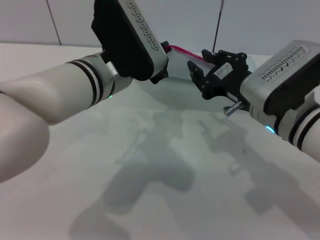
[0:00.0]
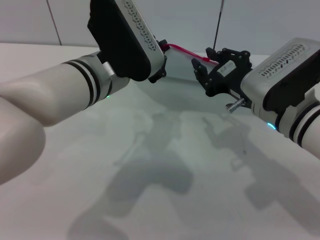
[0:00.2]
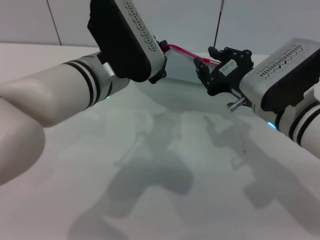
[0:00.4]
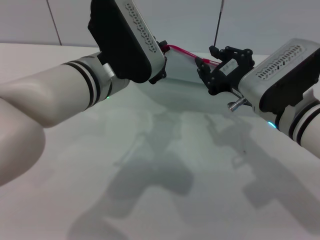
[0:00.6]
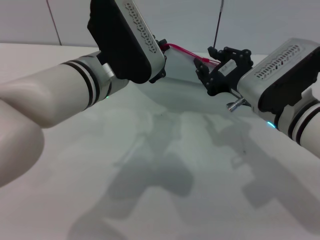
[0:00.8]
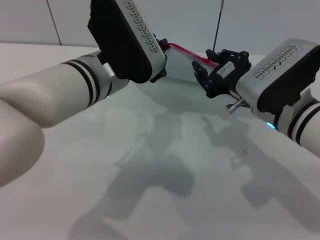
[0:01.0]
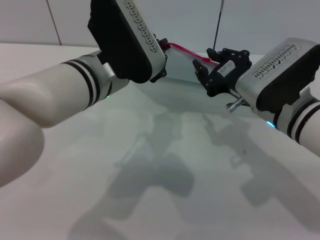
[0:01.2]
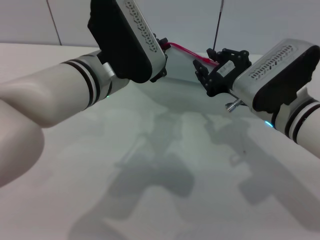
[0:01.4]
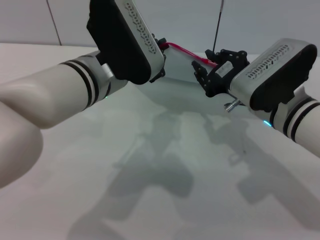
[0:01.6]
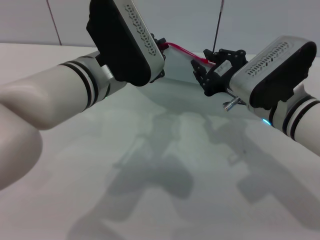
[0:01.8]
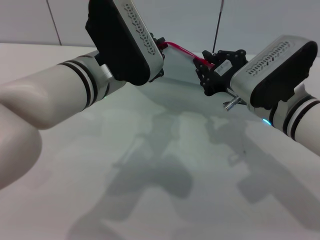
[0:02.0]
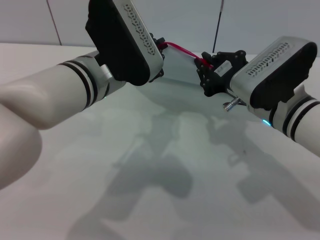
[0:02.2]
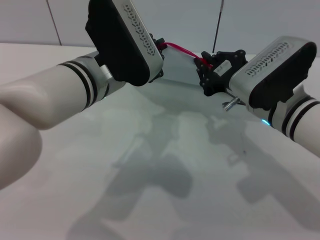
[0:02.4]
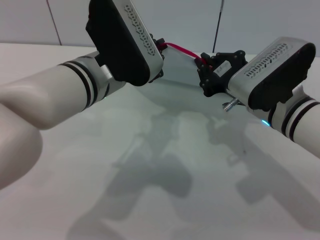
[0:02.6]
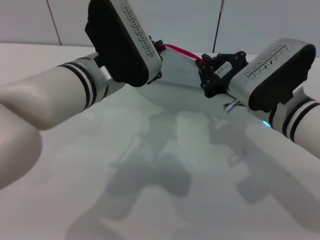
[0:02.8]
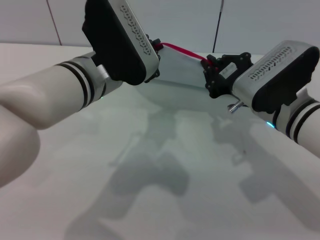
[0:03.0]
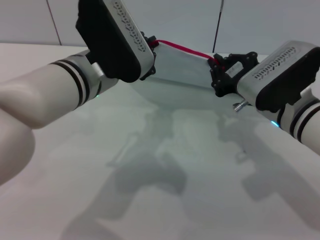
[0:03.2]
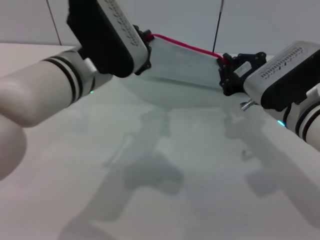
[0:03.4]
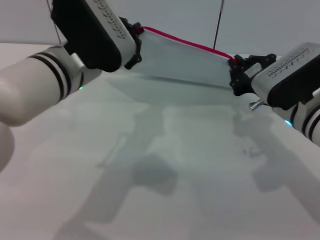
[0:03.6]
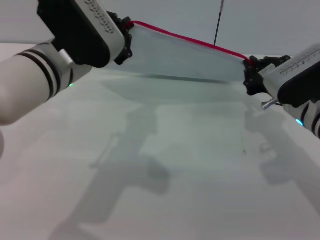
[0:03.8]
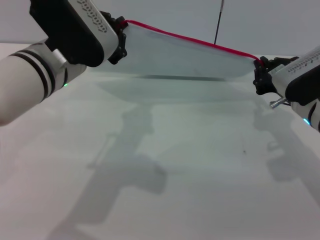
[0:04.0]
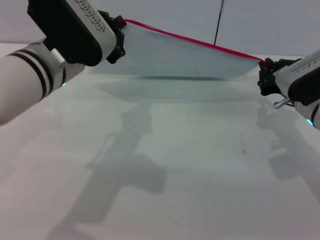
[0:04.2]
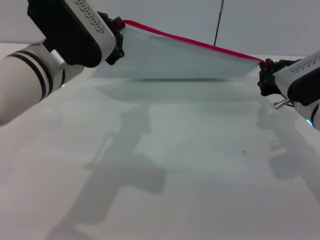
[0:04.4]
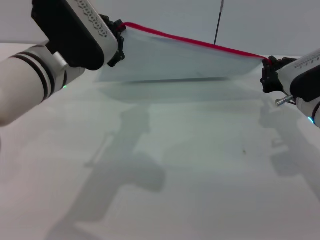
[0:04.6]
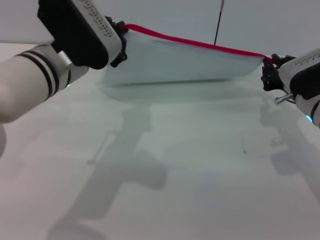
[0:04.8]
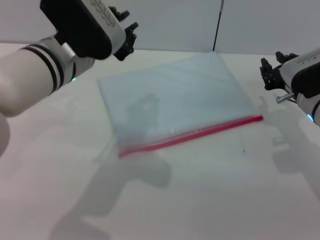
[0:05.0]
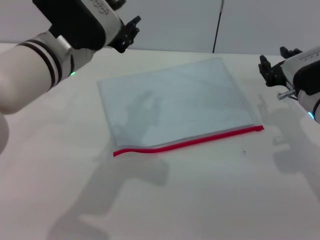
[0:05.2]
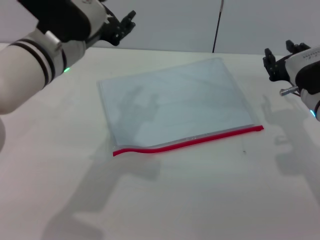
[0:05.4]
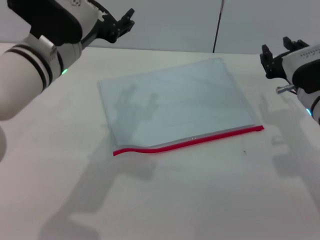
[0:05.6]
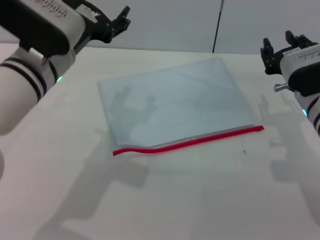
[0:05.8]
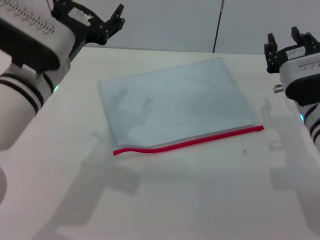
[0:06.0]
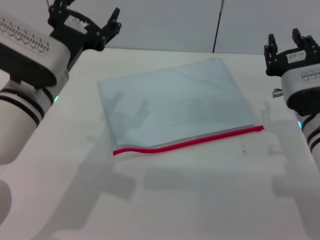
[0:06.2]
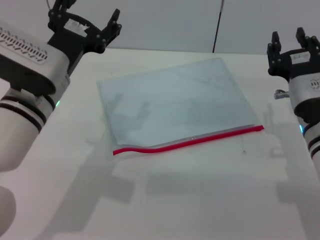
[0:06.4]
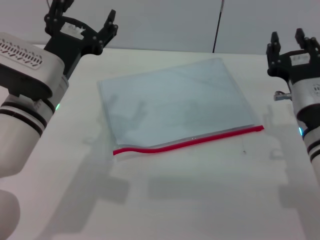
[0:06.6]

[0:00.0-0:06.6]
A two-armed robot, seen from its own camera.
Step, 0:00.0 to 0:04.2: Pulling up the zipper on the transparent plastic bag with the right gripper to close it.
Step, 0:04.4 to 0:05.2: Place the transparent plastic bag.
0:00.0 to 0:01.6: The grippers move only a little.
0:01.6 to 0:03.2: The right gripper closes up.
0:03.2 to 0:05.0: The right gripper heads to the right, covering approximately 5 cm, and opens its fingers.
0:05.0 to 0:06.6: The left gripper travels downward by about 5 cm, and opens its fingers. The right gripper goes some 5 cm backward, and opens.

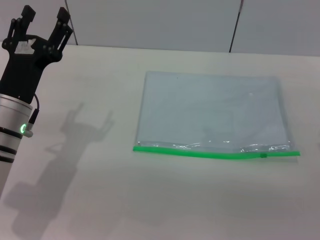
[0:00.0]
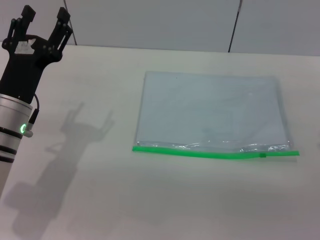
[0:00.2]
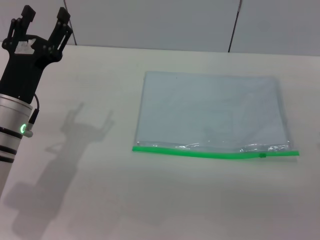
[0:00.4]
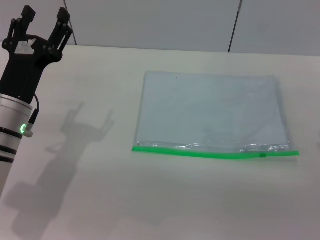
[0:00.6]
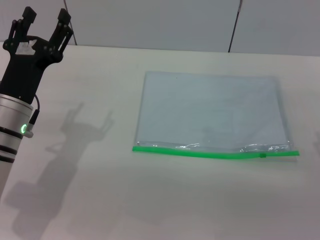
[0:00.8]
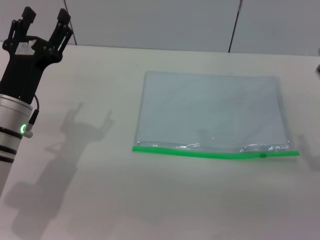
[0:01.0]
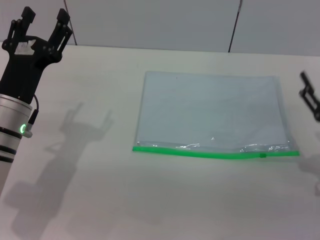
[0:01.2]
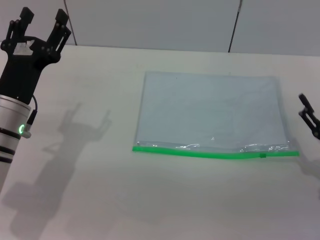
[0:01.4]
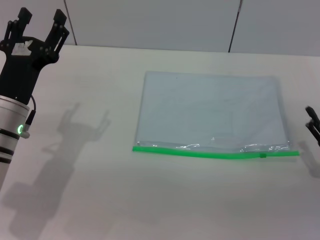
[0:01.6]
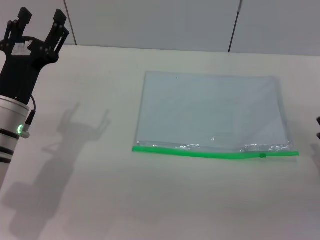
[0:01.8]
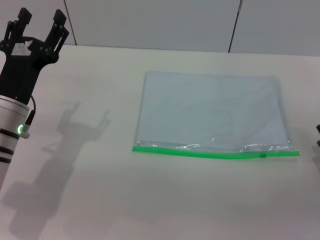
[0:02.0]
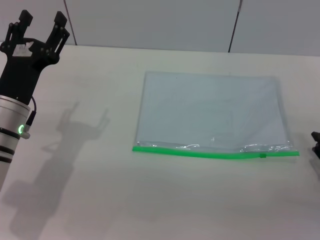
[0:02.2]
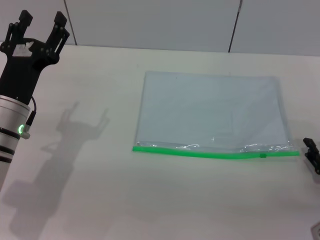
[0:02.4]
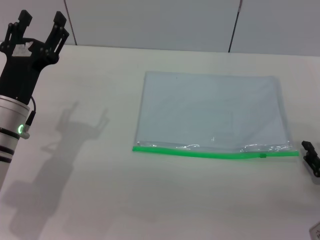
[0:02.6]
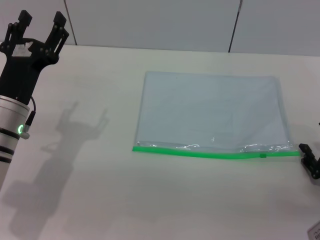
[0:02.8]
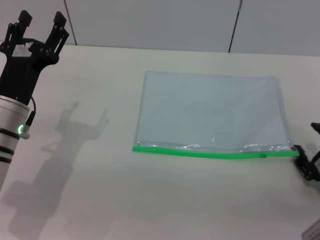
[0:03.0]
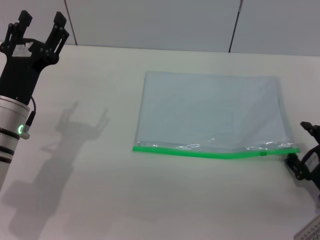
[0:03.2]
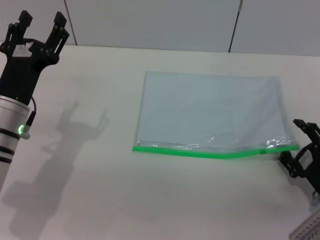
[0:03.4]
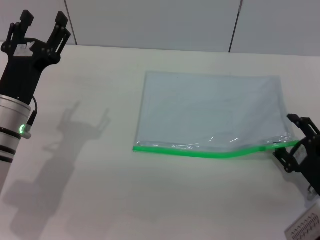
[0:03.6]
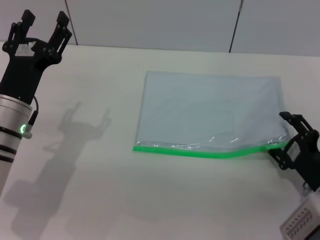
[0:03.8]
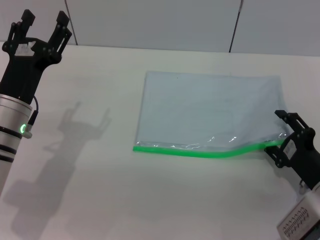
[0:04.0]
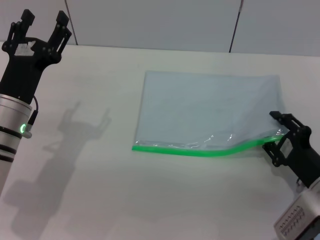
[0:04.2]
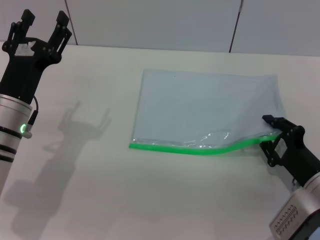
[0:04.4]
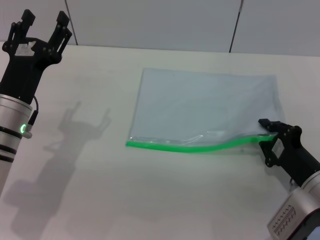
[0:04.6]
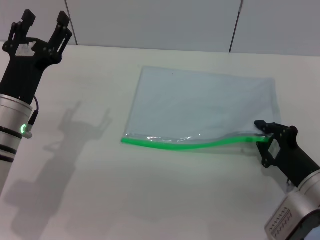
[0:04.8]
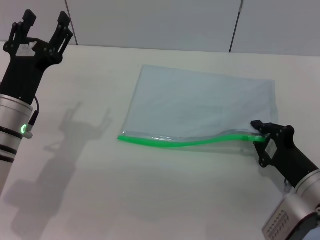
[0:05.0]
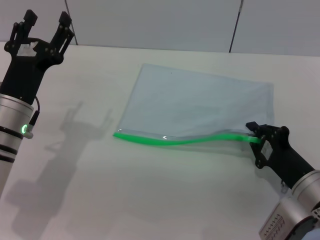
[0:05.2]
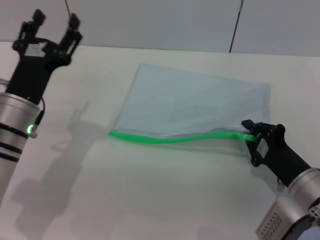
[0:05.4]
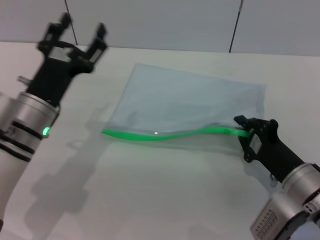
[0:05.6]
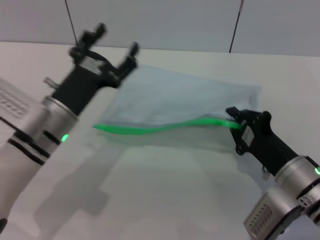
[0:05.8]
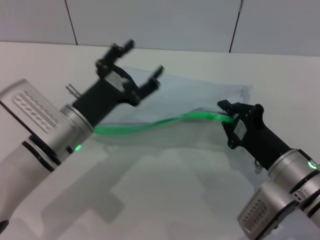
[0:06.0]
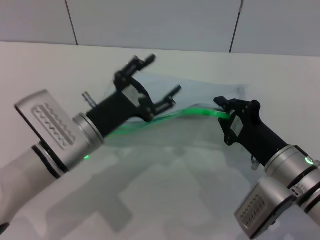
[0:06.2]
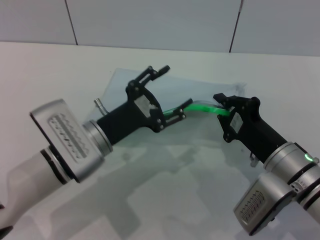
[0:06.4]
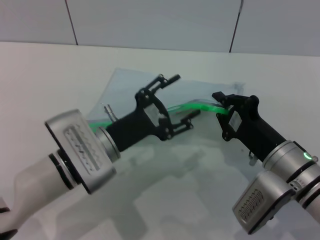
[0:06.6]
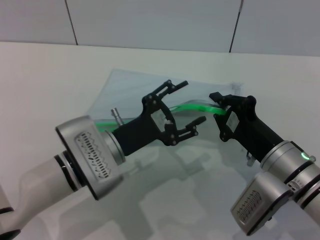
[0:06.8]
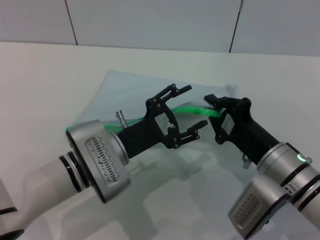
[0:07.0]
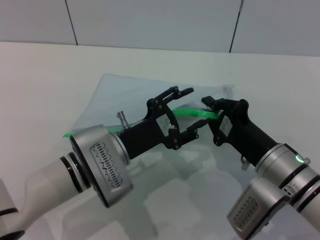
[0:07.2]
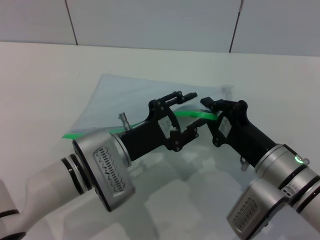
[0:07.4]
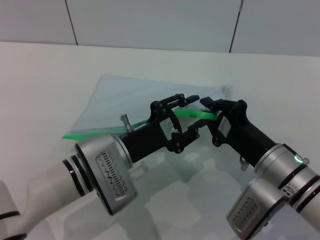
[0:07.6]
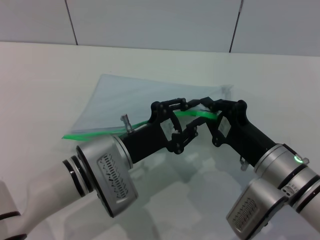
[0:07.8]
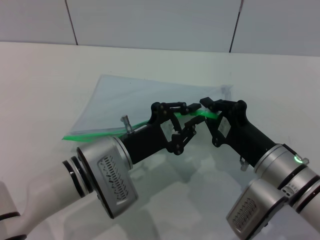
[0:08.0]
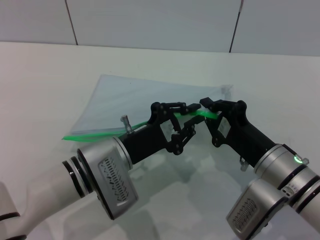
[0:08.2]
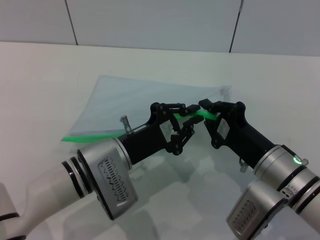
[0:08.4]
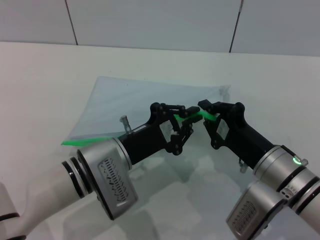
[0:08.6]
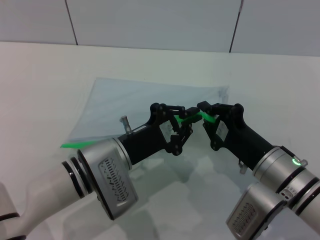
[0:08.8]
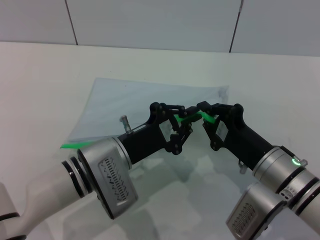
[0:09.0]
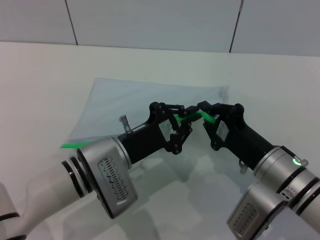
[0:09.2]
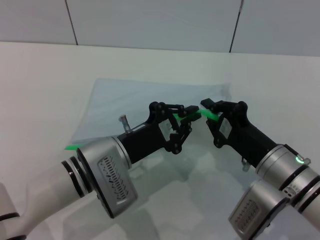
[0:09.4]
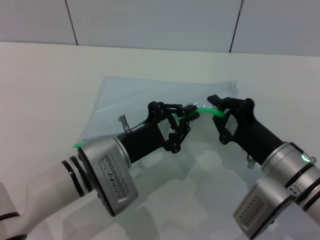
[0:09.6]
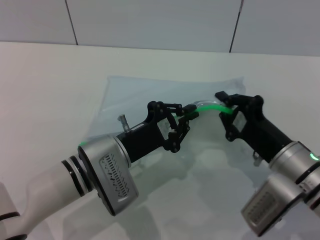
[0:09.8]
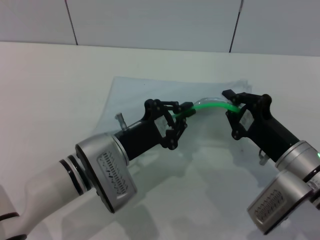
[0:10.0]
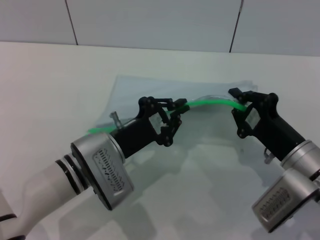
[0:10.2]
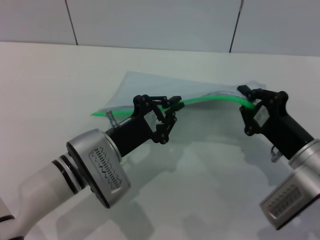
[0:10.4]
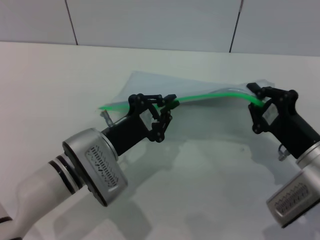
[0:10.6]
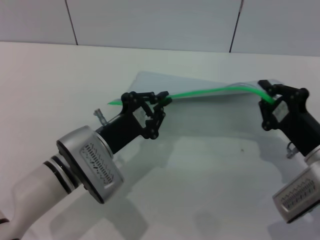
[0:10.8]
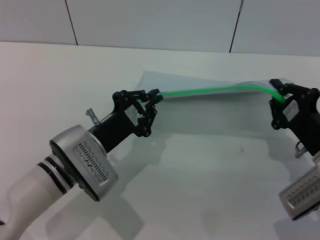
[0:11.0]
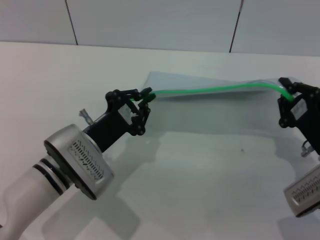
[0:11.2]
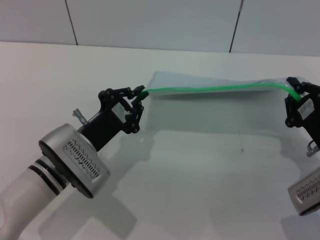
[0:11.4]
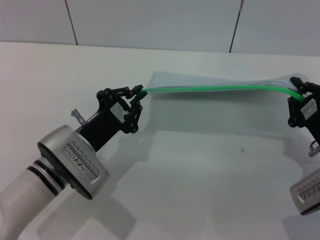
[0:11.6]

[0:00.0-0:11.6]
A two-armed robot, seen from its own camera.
Step, 0:00.0 to 0:05.8: Pick up the transparent plastic bag with the right gripper.
0:00.0 to 0:01.4: The right gripper shifts about 5 cm downward.
0:01.4 to 0:02.8: The right gripper ends up roughly 5 cm from where it was.
0:02.8 to 0:04.4: The right gripper shifts some 5 cm to the left.
0:04.4 to 0:05.8: The right gripper shifts by about 5 cm, and closes up.
0:05.8 to 0:07.2: The left gripper heads to the right, covering some 5 cm.
0:07.2 to 0:08.8: The left gripper closes its fingers.
0:10.2 to 0:11.6: The right gripper goes some 5 cm to the right.

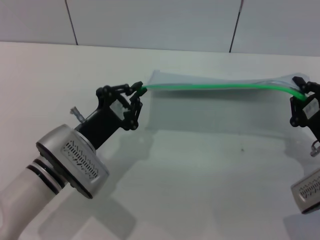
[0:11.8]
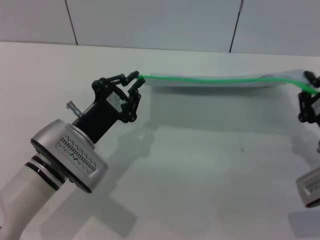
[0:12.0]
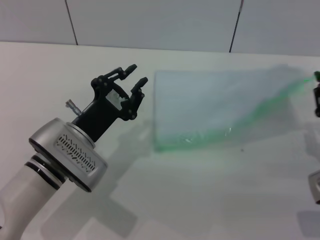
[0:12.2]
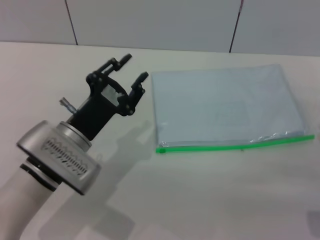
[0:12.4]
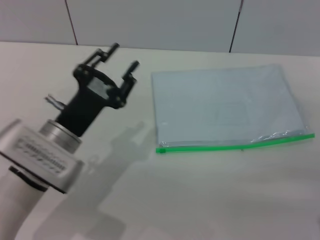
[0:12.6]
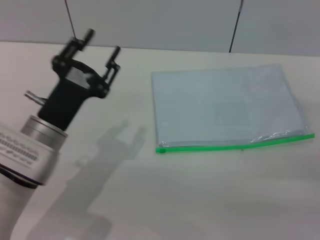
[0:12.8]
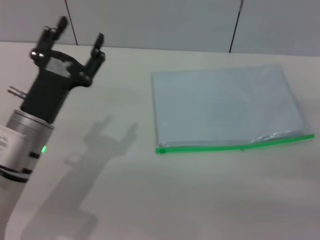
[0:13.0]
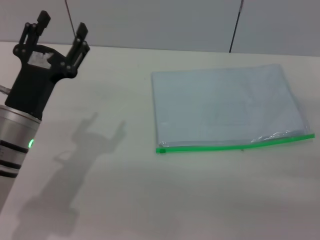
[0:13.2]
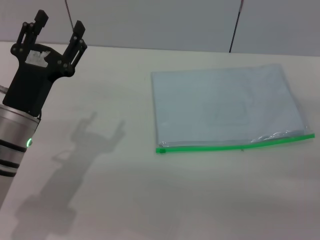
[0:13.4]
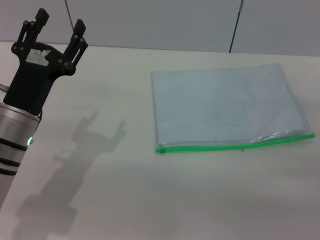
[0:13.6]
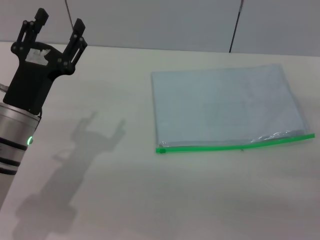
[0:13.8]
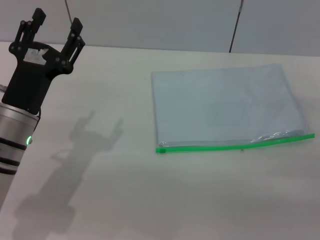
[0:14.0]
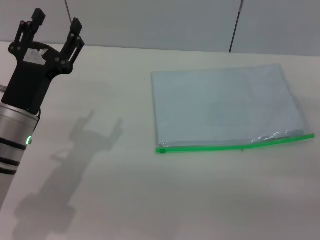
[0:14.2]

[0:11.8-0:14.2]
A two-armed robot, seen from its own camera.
Step, 0:12.2 to 0:13.0: Place the transparent plastic bag.
0:11.8 to 0:13.0: The right gripper moves to the right, roughly 5 cm, and opens, while the left gripper ends up some 5 cm from where it was, and opens.
0:13.0 to 0:14.2: The grippers move only a little.
